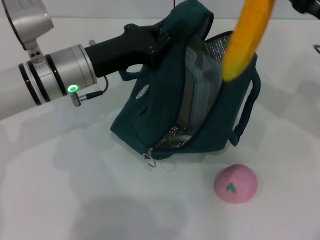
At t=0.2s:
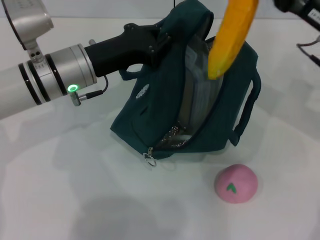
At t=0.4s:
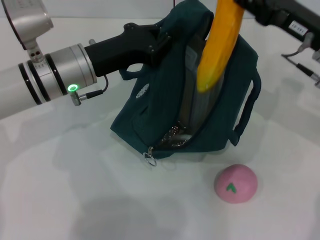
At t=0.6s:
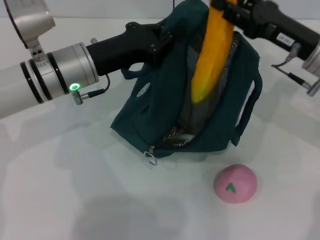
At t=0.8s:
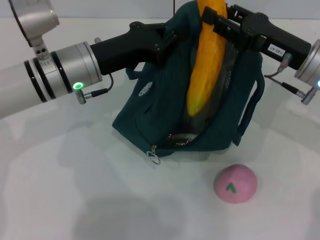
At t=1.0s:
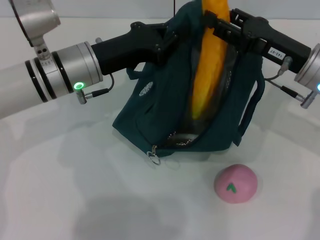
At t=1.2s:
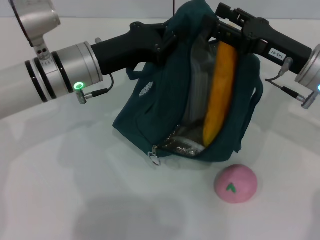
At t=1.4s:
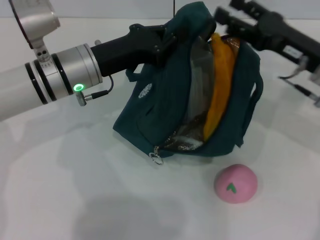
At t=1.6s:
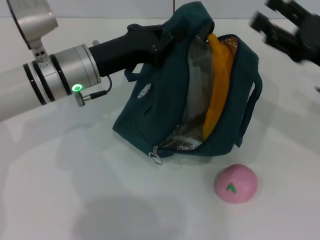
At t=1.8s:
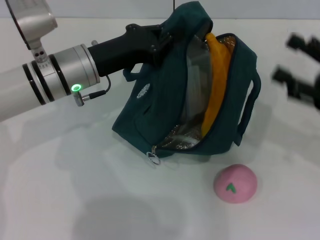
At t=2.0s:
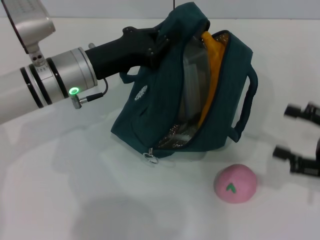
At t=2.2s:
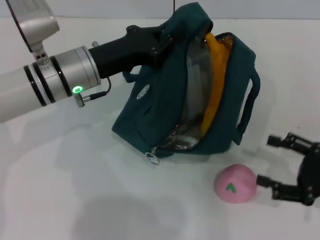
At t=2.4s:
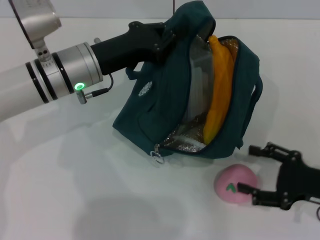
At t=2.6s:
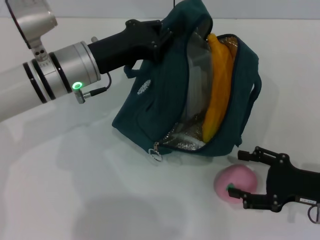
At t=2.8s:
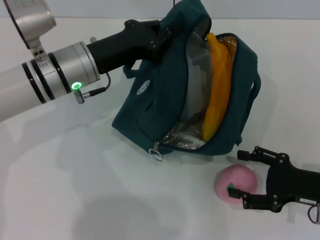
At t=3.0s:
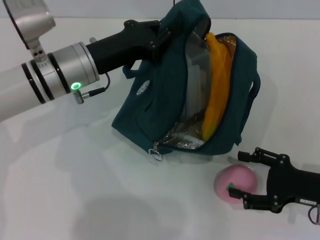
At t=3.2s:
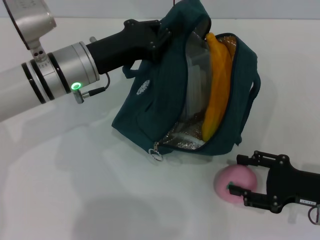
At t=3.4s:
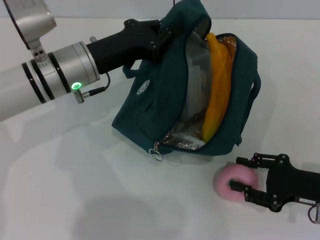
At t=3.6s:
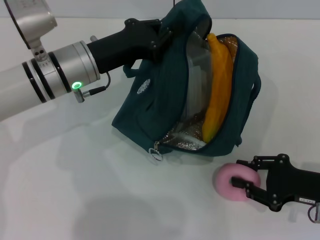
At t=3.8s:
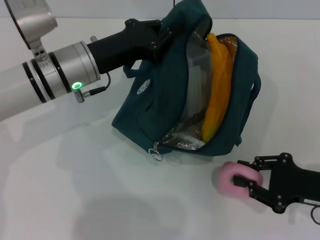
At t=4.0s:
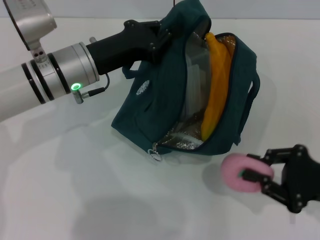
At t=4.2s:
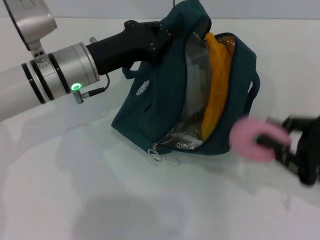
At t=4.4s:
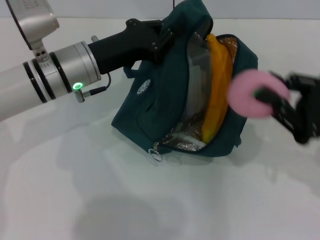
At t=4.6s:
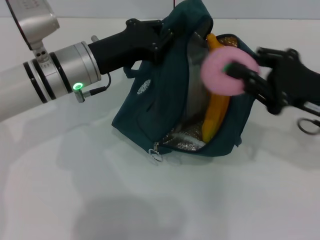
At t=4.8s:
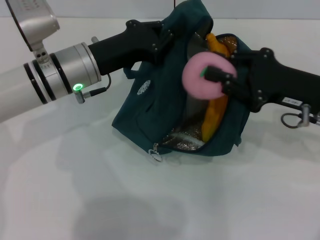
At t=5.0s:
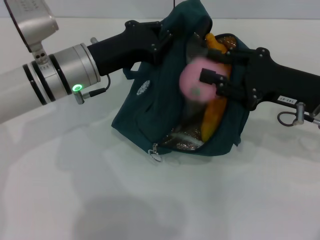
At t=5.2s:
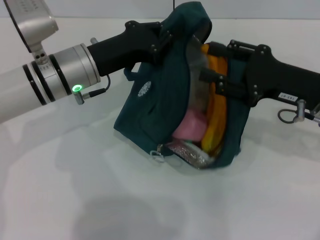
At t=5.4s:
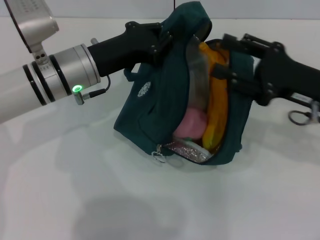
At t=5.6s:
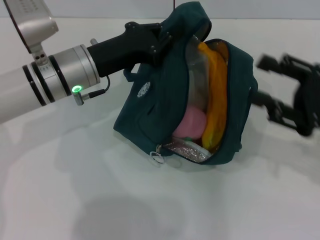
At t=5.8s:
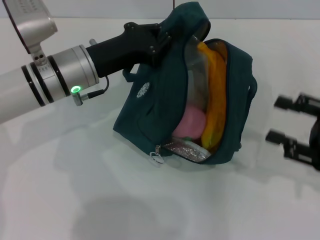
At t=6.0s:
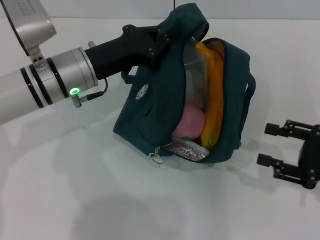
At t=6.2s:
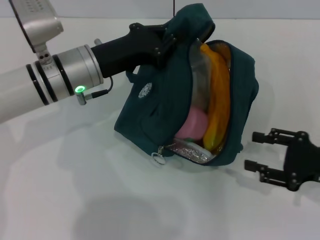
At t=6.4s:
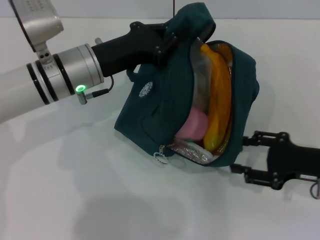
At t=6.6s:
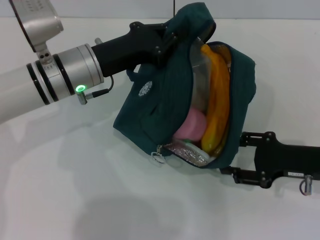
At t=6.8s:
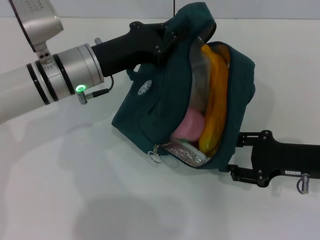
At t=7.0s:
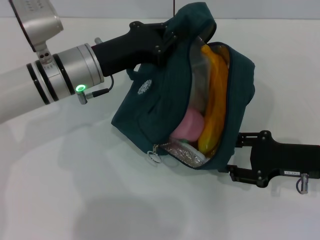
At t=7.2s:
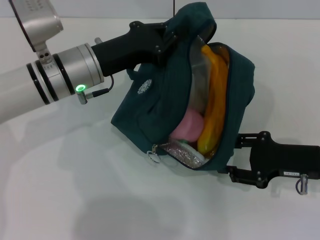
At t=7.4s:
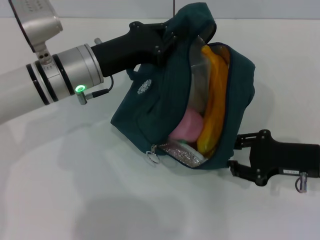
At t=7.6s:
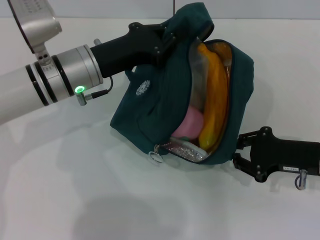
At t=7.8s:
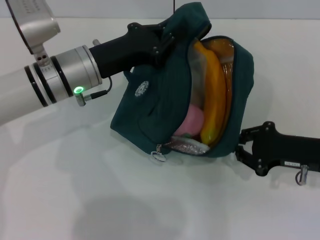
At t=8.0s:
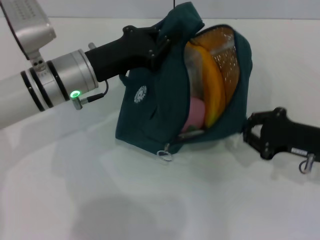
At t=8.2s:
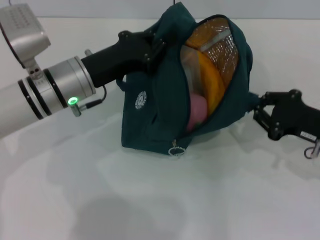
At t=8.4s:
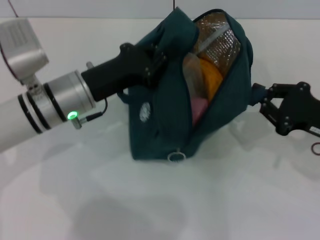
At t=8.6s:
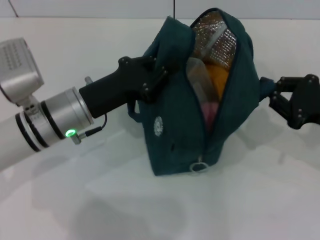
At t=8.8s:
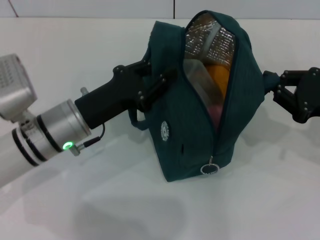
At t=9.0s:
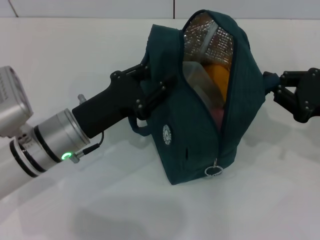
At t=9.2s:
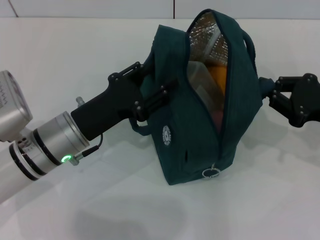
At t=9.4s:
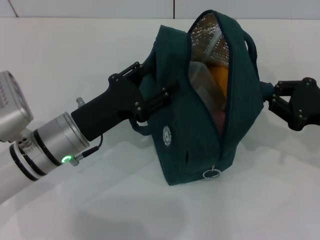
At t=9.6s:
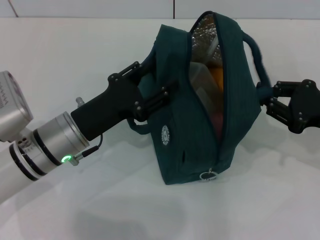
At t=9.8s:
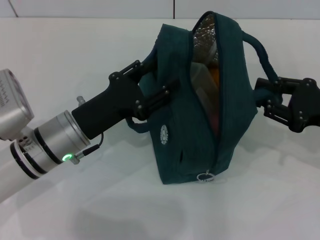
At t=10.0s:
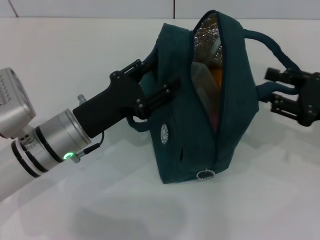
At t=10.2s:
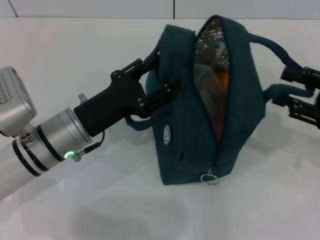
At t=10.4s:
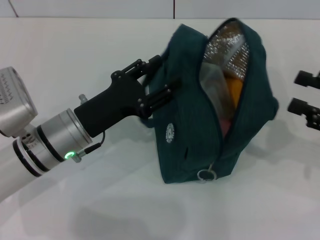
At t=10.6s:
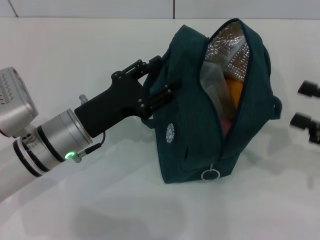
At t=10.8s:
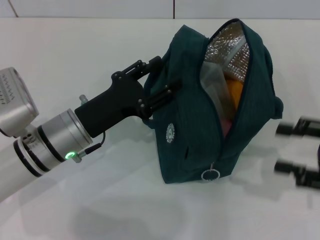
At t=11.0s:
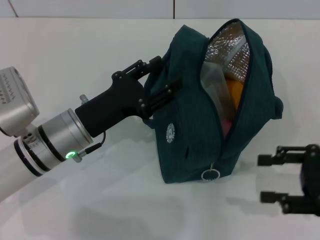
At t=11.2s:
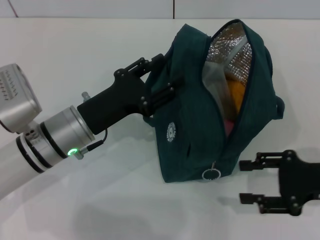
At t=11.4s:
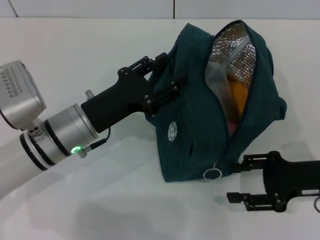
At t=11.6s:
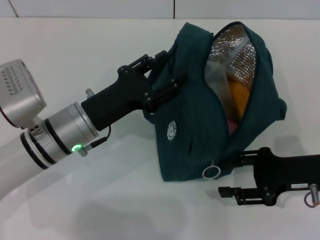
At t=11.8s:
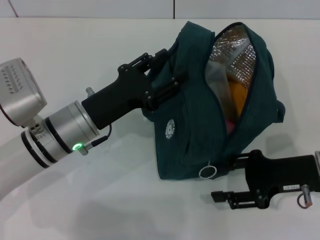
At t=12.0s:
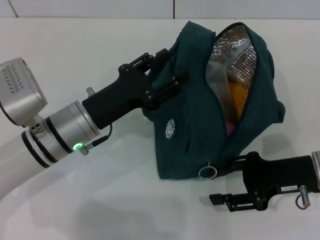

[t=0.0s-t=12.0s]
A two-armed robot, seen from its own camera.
Step, t=1.6s to t=3.4s: Grab the peach with your right hand.
Step, t=5.4s to t=10.2s: Hold the lunch bag with your right hand.
t=0.0s to t=1.6s: The right gripper opens up.
t=1.6s to t=3.0s: The right gripper heads downward and backward, covering some 15 cm.
t=3.0s to t=4.4s: The right gripper travels upward by about 5 cm, and closes its fingers.
t=4.4s to t=6.0s: The right gripper opens its fingers.
t=6.0s to t=7.6s: The right gripper heads to the left, covering some 5 cm.
t=7.6s to t=9.0s: The right gripper moves upward, some 5 cm, and closes up, while the left gripper moves backward and downward, some 10 cm.
t=9.0s to t=10.4s: The left gripper opens its fingers, while the right gripper shifts by approximately 5 cm, and opens.
t=10.4s to t=12.0s: The right gripper moves to the left and downward, about 10 cm.

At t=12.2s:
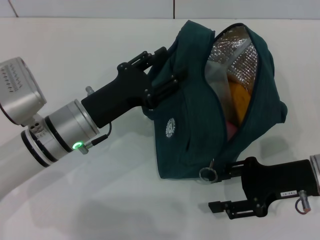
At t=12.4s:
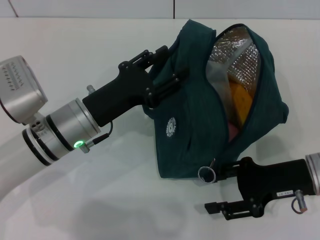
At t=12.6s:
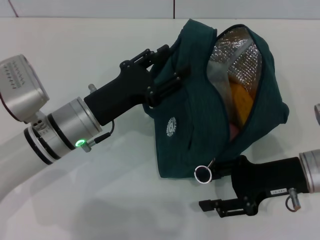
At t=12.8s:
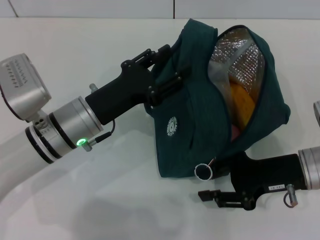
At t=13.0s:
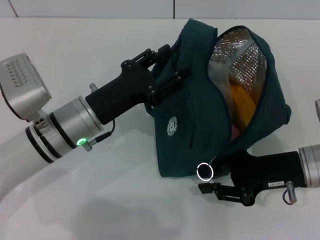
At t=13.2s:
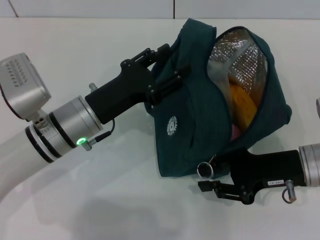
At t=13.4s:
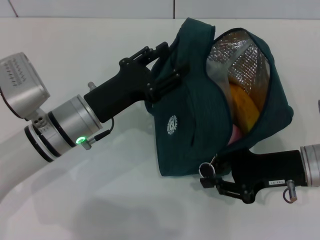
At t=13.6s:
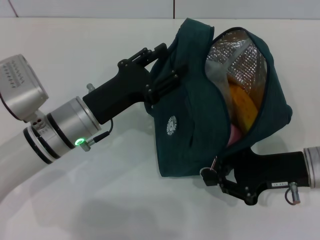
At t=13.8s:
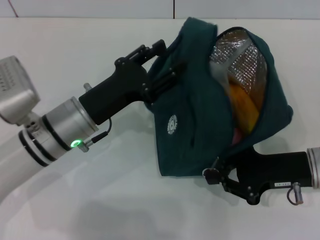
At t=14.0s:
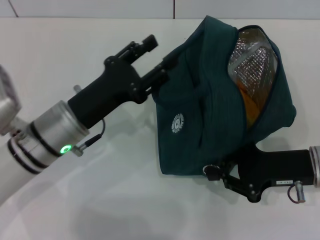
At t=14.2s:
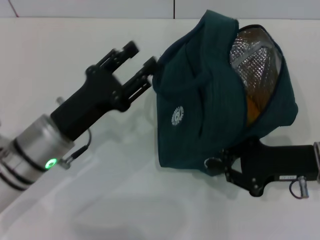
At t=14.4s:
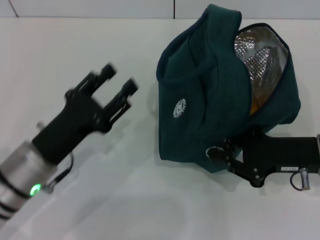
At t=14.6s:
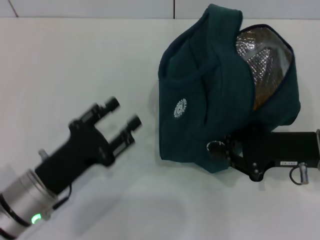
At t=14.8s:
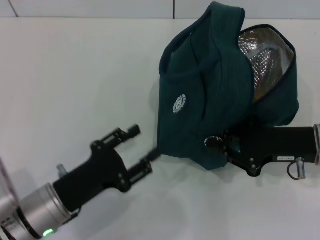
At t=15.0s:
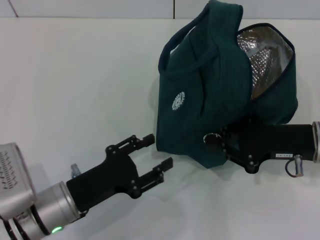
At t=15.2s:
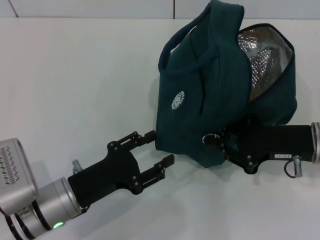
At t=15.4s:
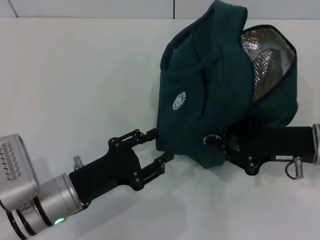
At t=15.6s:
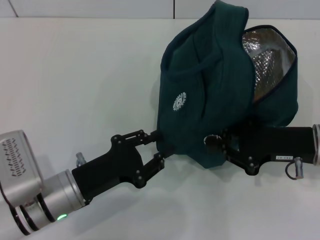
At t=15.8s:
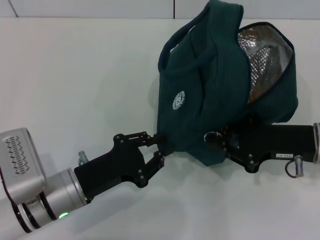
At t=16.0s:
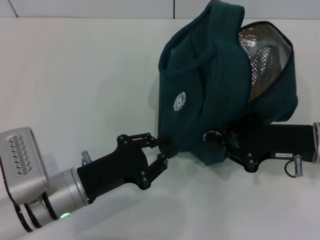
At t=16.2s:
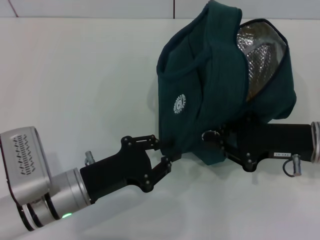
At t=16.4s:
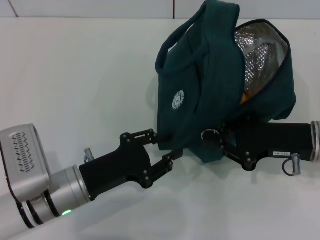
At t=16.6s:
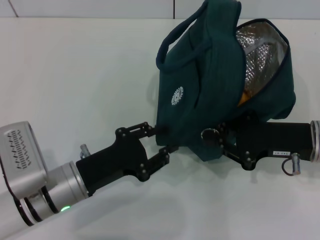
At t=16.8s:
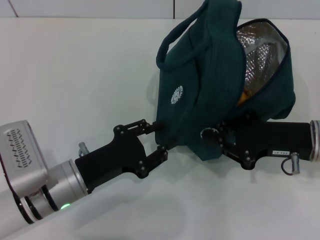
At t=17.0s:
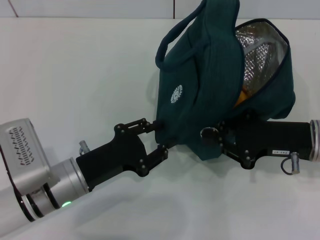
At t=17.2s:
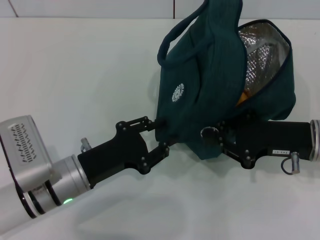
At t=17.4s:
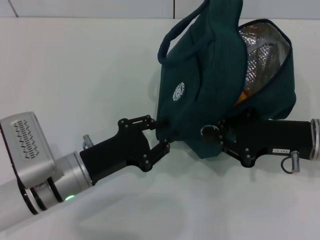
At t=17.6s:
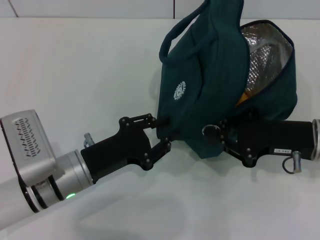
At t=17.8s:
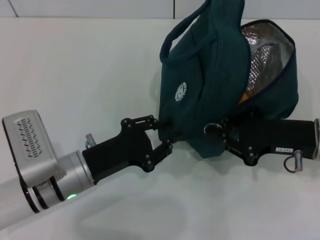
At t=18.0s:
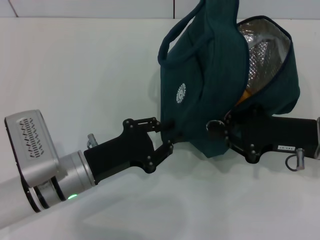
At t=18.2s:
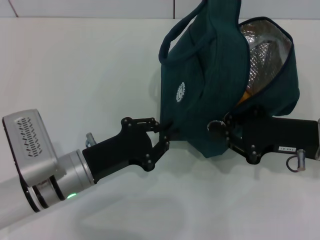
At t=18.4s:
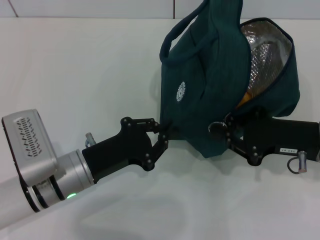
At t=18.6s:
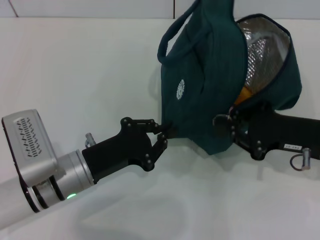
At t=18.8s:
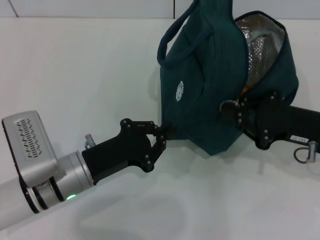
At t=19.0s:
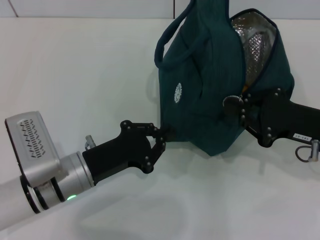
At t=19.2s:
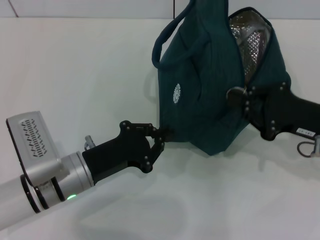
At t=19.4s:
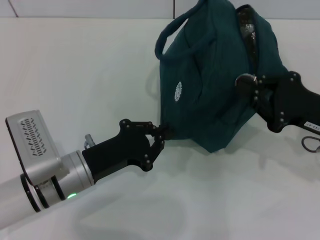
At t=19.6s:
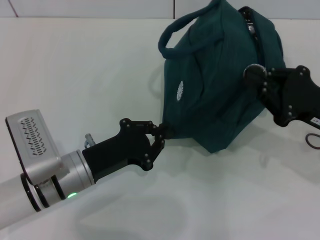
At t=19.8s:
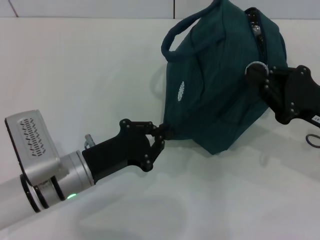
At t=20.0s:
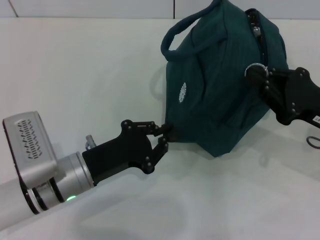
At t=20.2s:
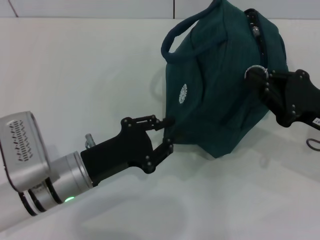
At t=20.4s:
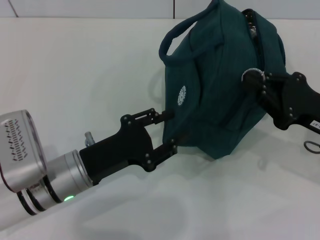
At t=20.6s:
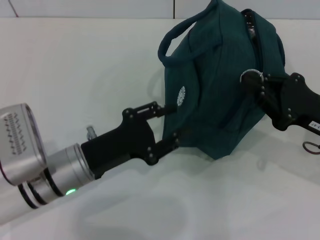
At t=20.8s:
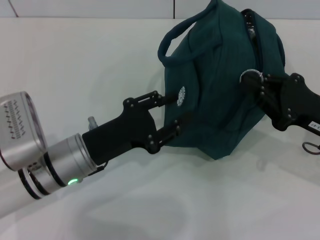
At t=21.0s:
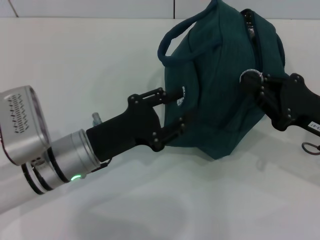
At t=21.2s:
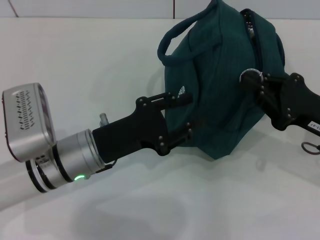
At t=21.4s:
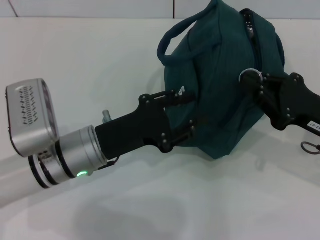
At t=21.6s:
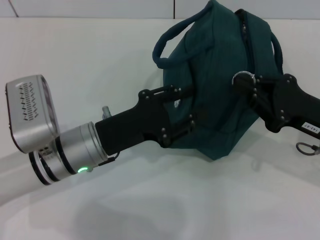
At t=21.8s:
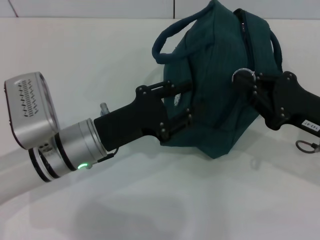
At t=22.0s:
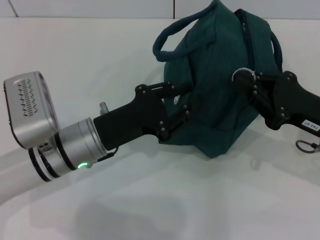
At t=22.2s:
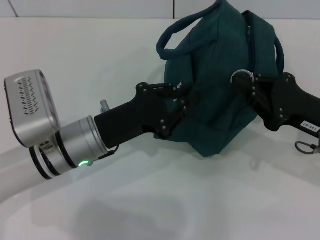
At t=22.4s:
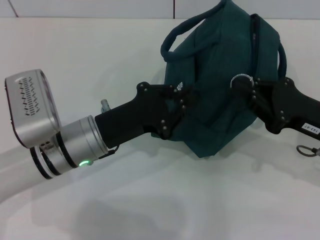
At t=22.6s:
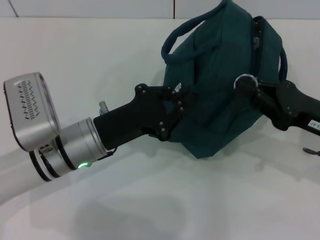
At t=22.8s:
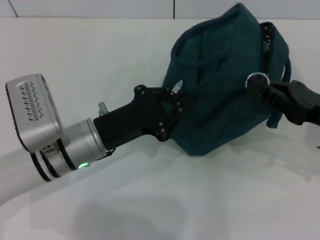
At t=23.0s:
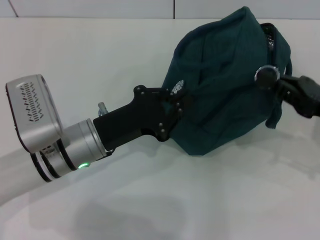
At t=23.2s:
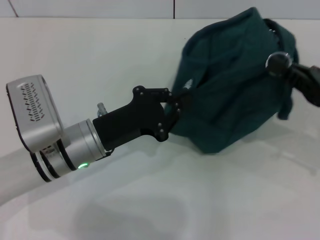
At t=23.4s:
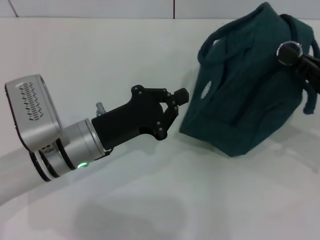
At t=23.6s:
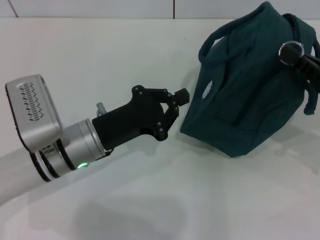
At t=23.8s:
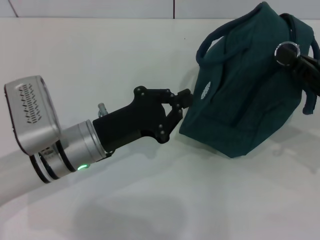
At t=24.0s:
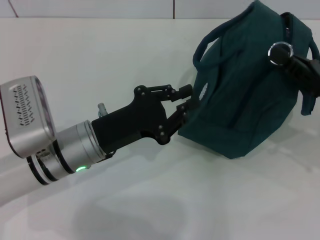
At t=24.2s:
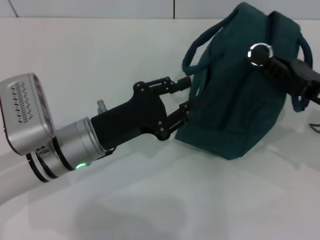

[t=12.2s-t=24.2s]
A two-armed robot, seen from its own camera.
t=12.2s to t=13.8s: The right gripper closes up.
t=13.8s to t=15.2s: The left gripper heads backward and downward, covering roughly 10 cm.
t=15.2s to t=18.2s: The grippers make only small movements.
t=19.8s to t=21.2s: The left gripper opens.
t=21.2s to t=22.6s: The left gripper closes.
t=22.6s to t=24.2s: There are only small adjustments of the grippers.
